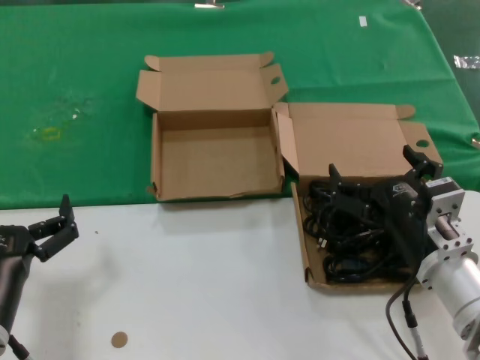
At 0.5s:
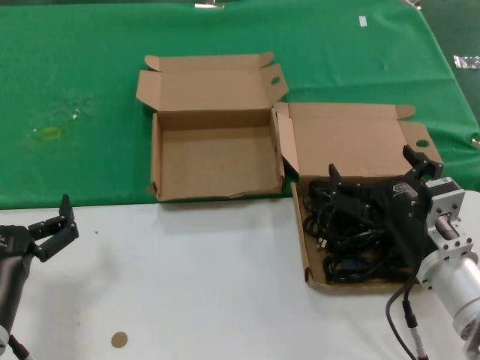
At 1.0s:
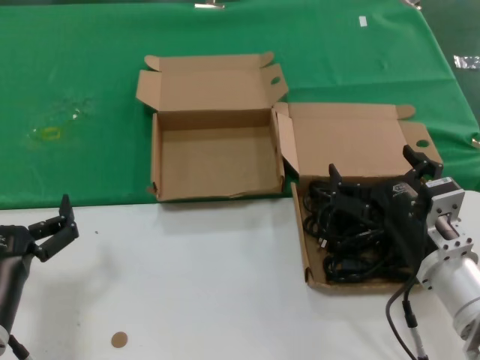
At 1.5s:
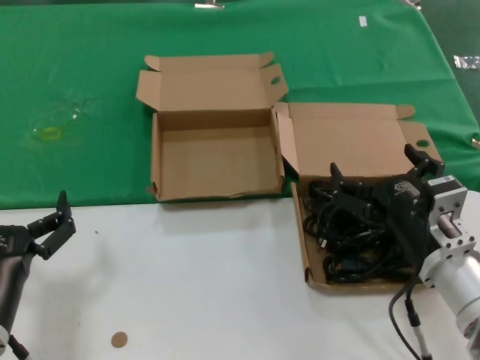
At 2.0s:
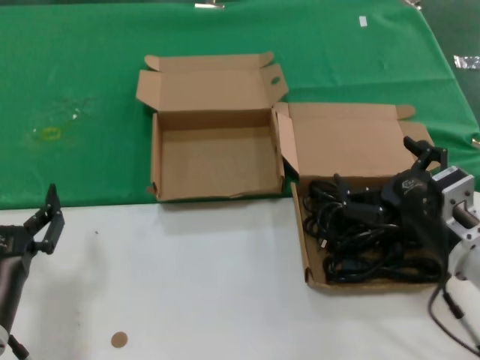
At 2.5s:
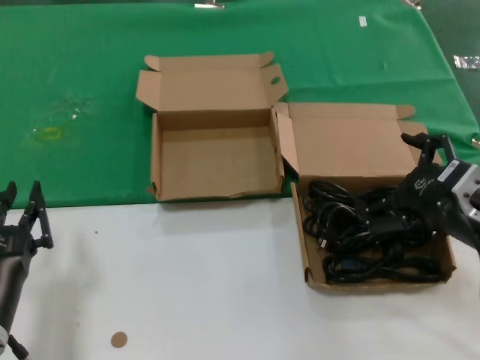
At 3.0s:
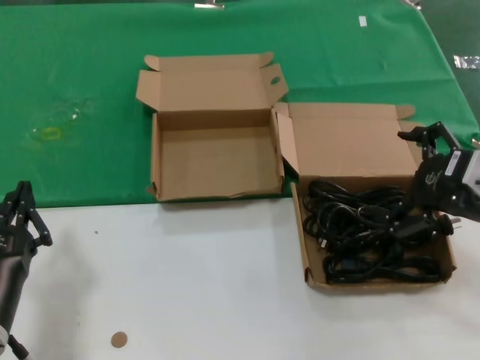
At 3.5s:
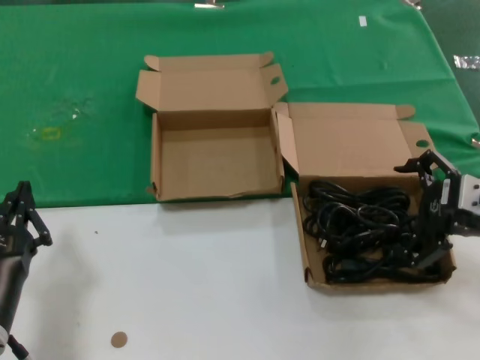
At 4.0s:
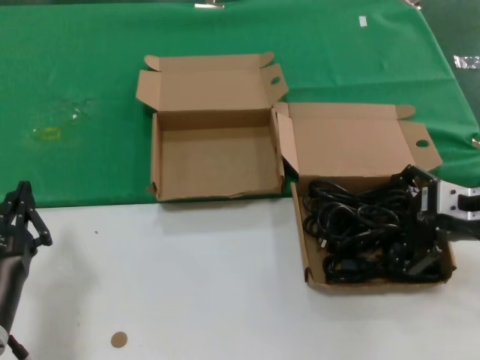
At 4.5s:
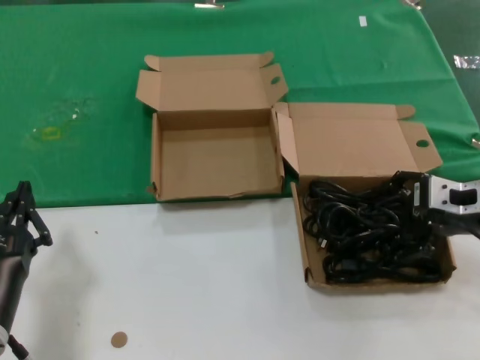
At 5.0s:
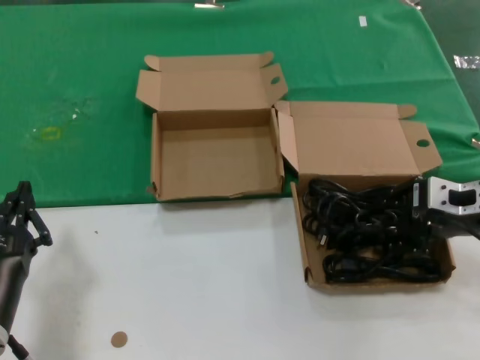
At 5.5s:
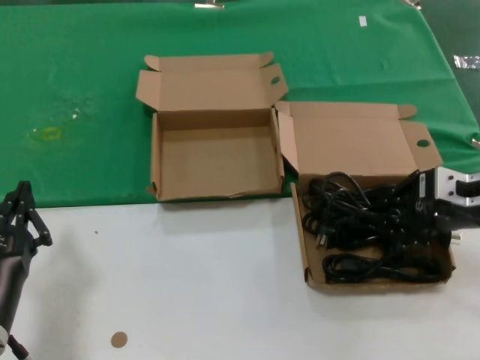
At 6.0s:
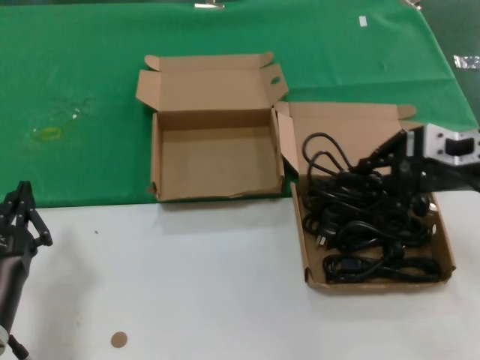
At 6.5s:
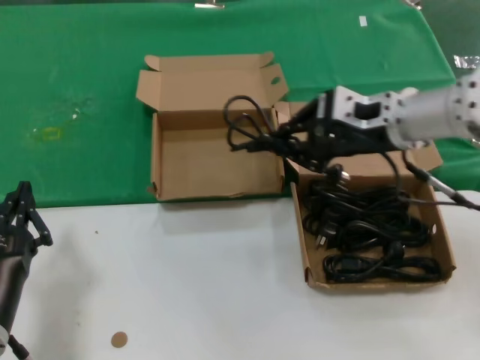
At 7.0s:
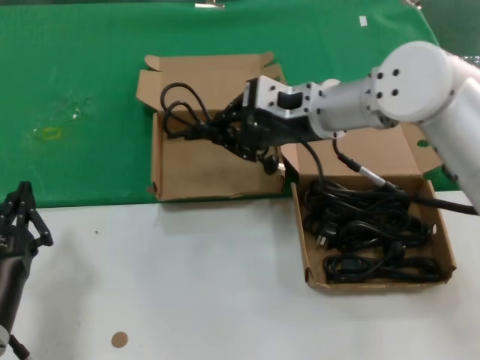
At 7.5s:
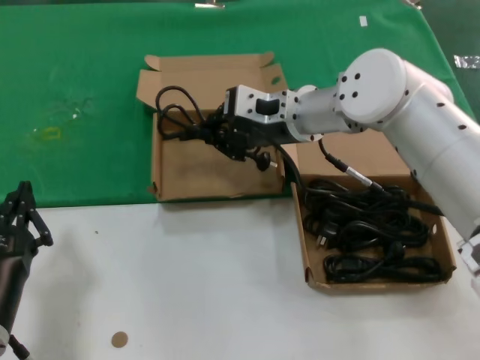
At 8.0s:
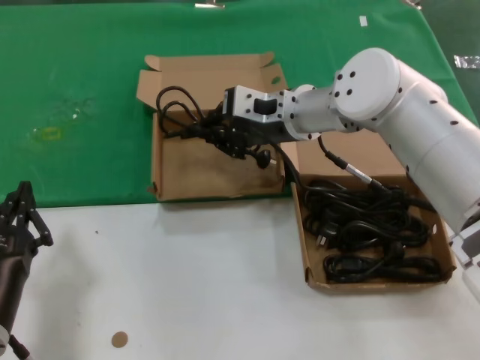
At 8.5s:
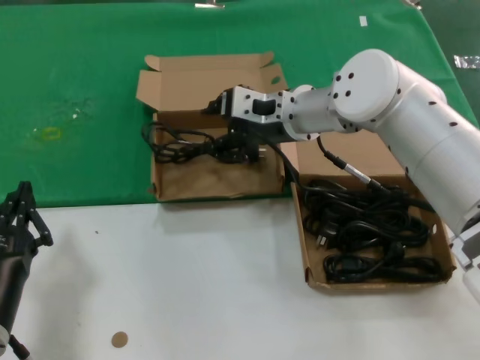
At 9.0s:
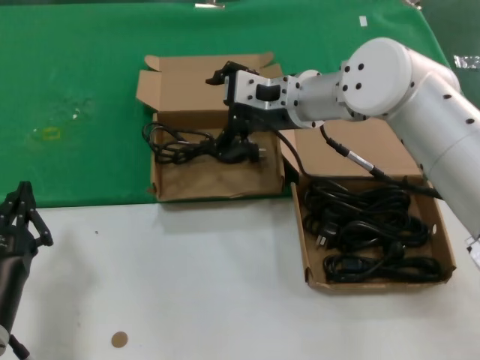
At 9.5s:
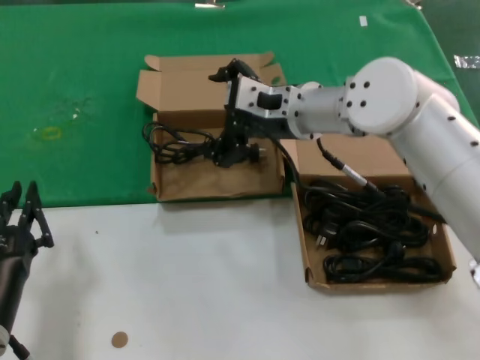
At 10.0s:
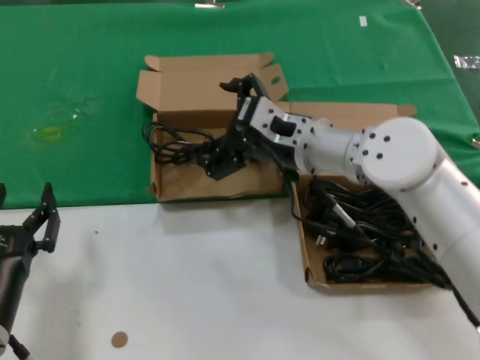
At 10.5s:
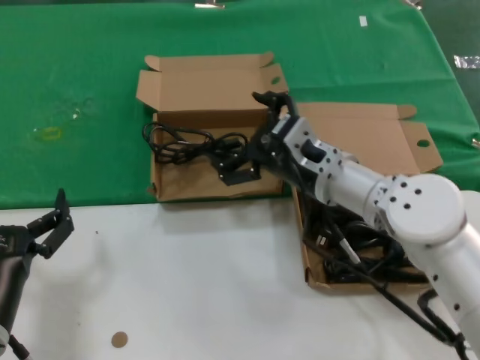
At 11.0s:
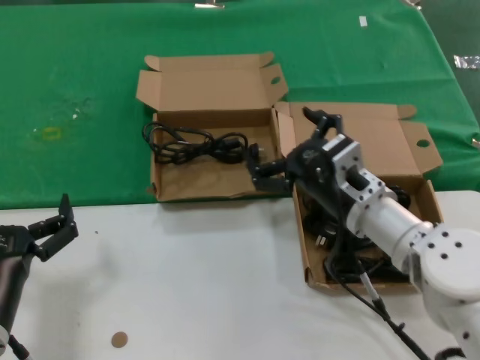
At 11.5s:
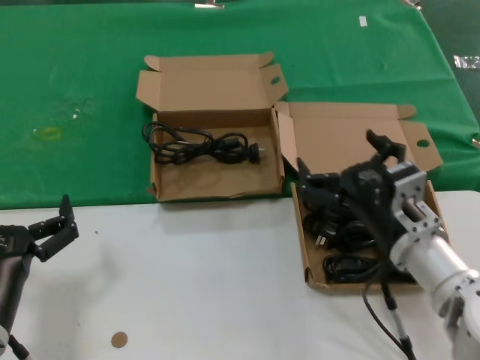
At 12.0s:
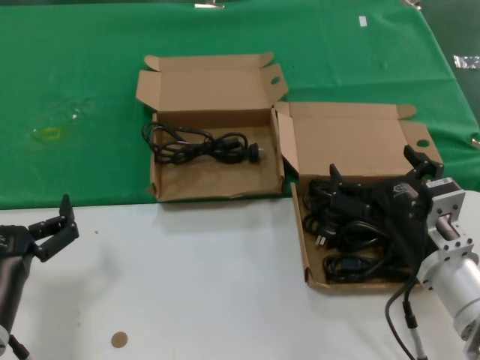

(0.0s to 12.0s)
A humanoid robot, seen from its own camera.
Task of the whole recording: take the parts from the box containing them and put them into an empty box.
Step, 0.0s - 5.0s: Grasp the data cable.
Step, 5.5s - 9.0s: Place the data cable in the another box.
0.0s - 2.0s: The hands stay close to where they were, moving slightly.
2.0s - 4.0s: The right hand travels to the right, upward and forward by roughly 15 cm.
4.0s - 6.0s: The right hand goes approximately 5 cm upward.
6.0s - 8.0s: The right hand travels to the left and forward by roughly 25 cm.
8.0s - 10.0s: The right hand moves backward, some 5 cm.
10.0s - 12.0s: The right hand shifts about 25 cm backward, downward and to the right.

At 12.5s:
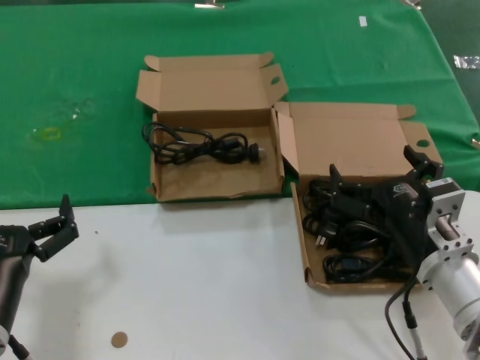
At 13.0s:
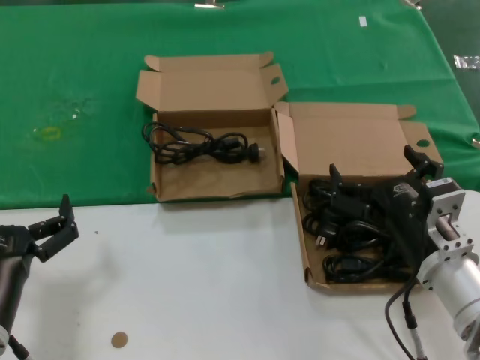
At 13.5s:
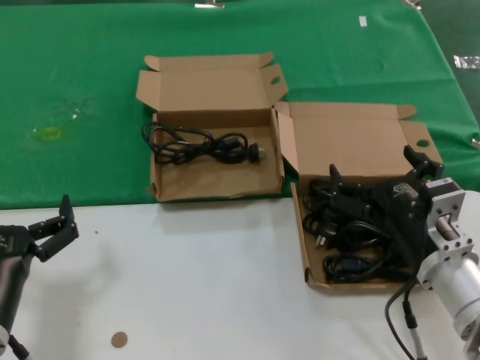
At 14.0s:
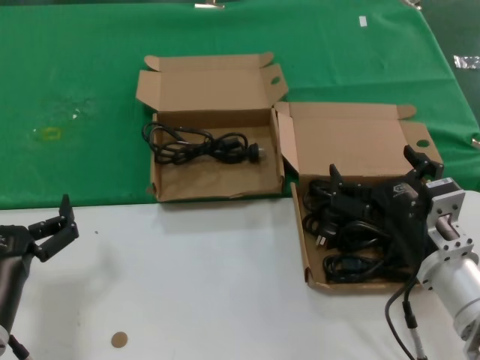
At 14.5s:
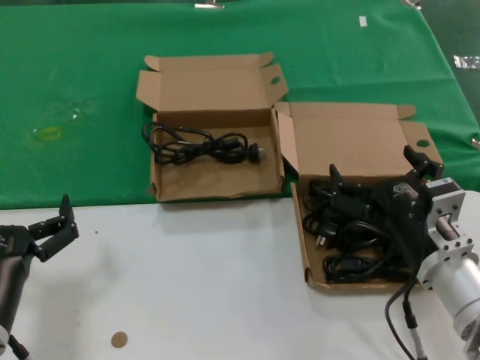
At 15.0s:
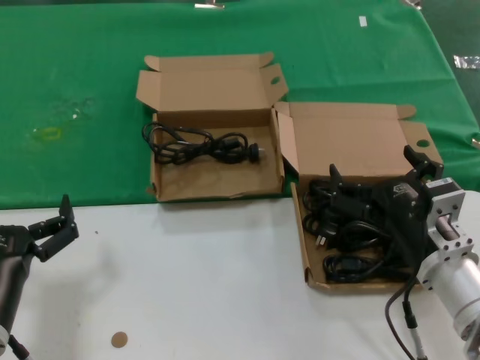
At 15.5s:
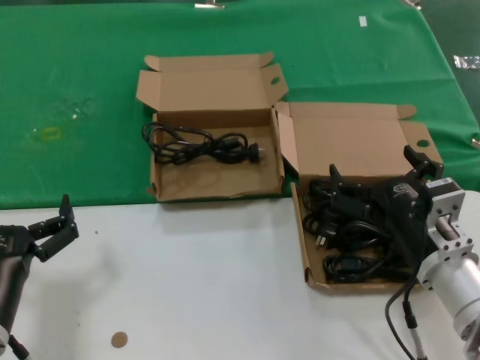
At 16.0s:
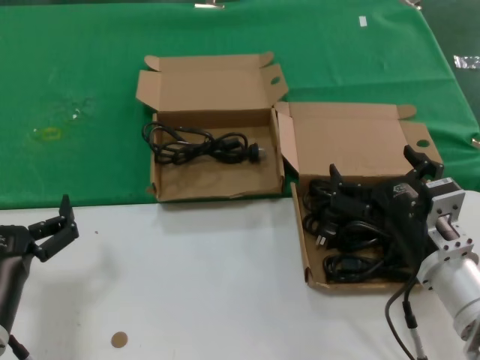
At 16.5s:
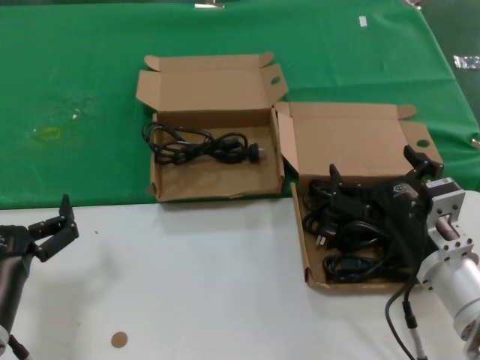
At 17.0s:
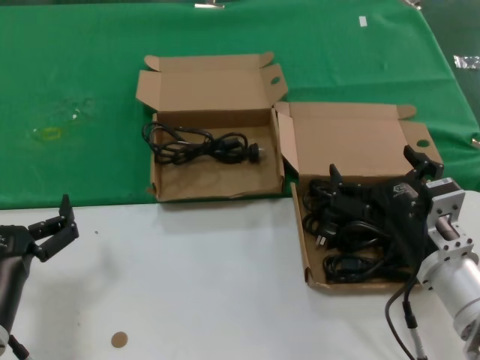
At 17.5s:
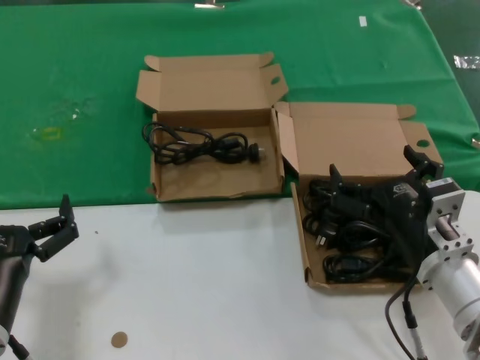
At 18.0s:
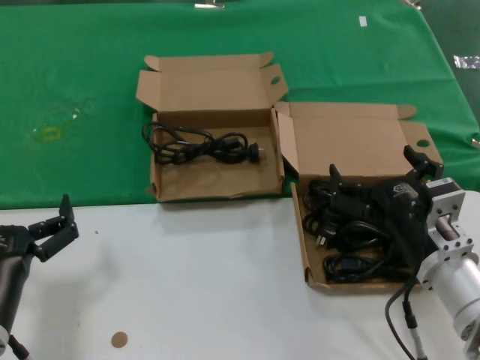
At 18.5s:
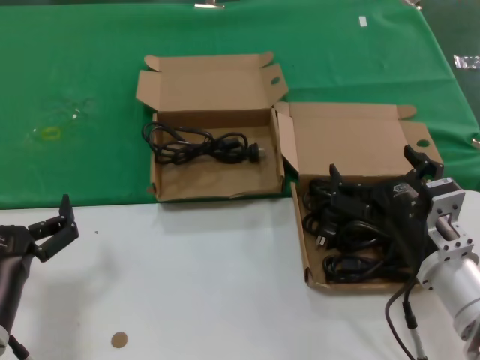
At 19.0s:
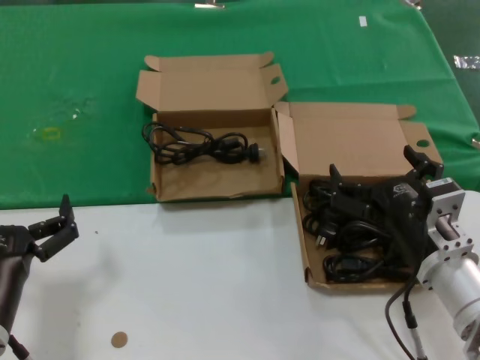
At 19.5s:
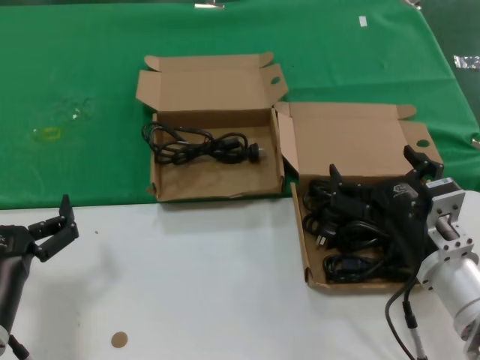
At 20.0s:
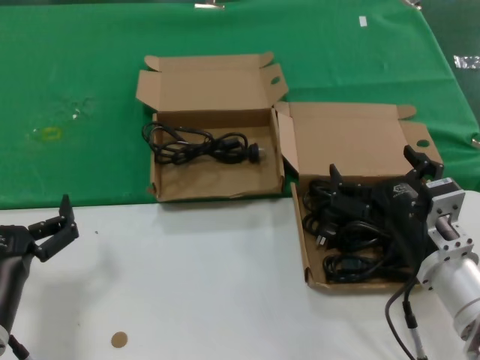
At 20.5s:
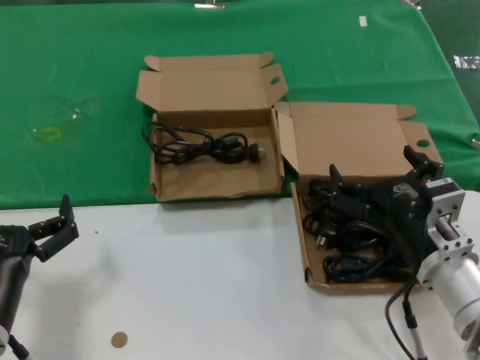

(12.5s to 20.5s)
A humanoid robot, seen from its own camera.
Task of the whole recording: take the parts from the box containing them and put them into an empty box.
12.5s - 20.5s: Both hands stay about where they are.

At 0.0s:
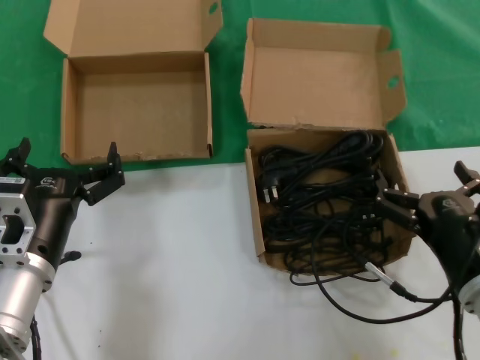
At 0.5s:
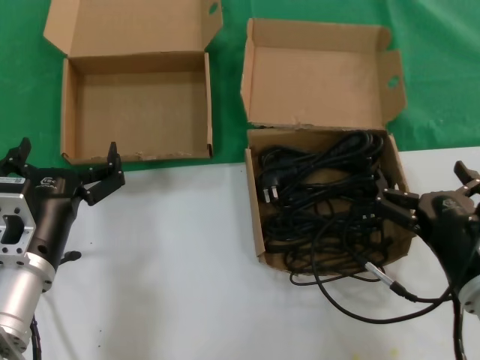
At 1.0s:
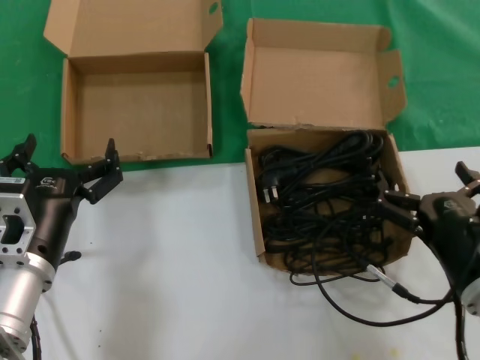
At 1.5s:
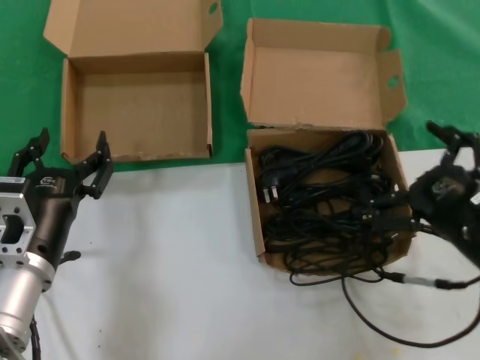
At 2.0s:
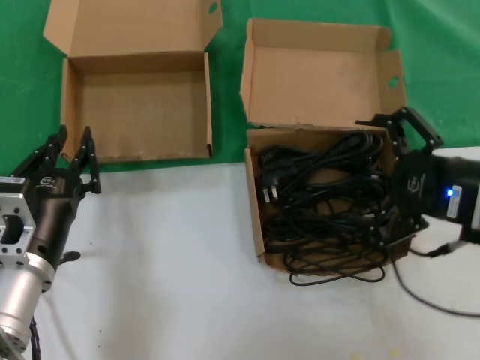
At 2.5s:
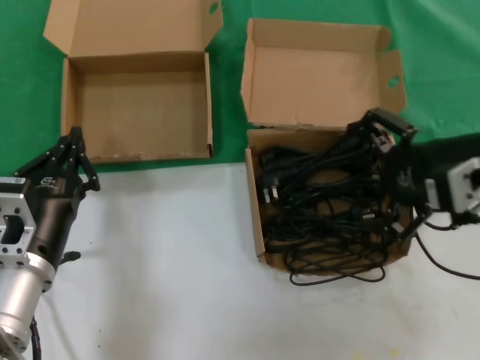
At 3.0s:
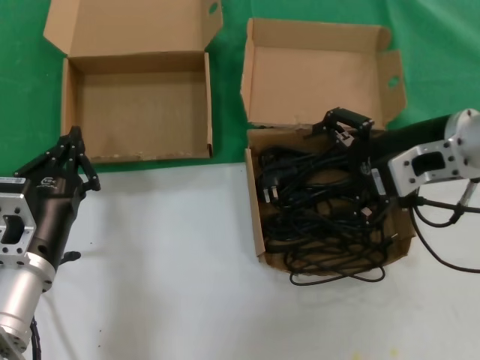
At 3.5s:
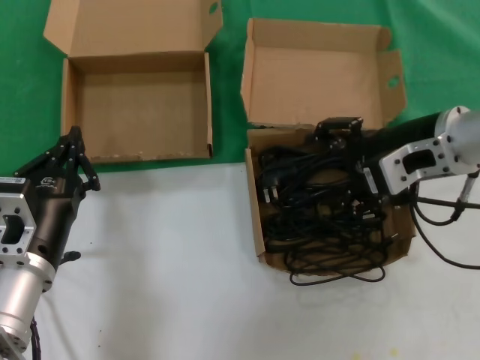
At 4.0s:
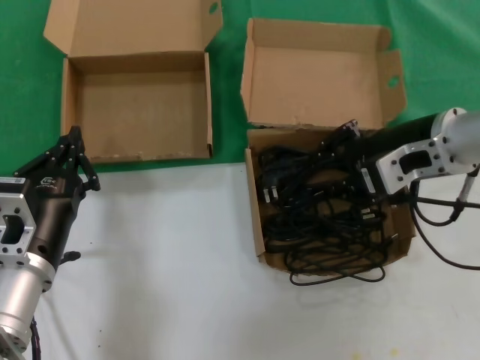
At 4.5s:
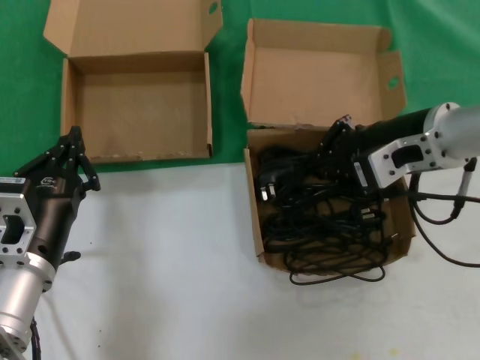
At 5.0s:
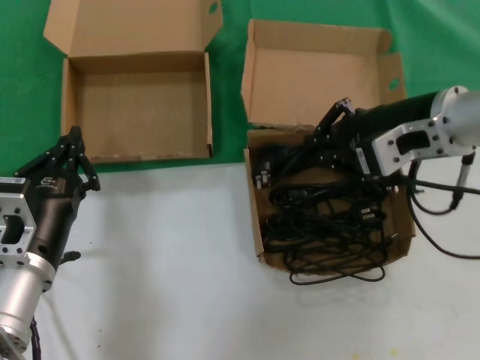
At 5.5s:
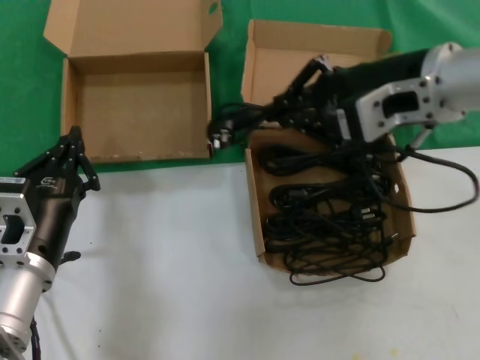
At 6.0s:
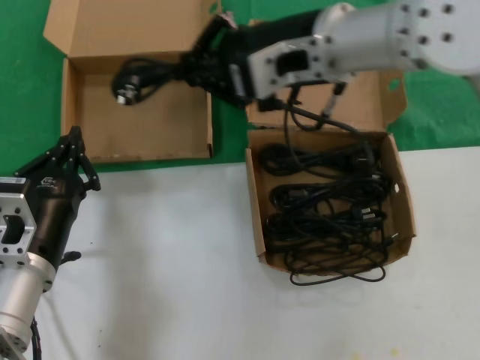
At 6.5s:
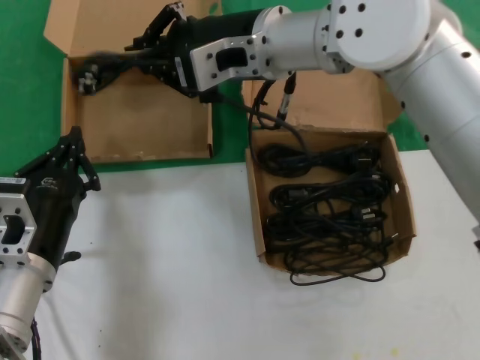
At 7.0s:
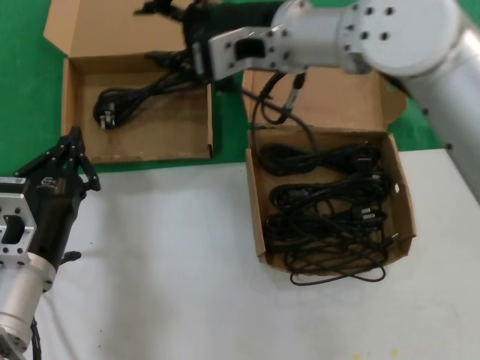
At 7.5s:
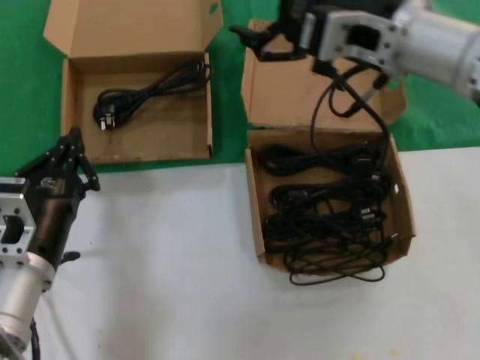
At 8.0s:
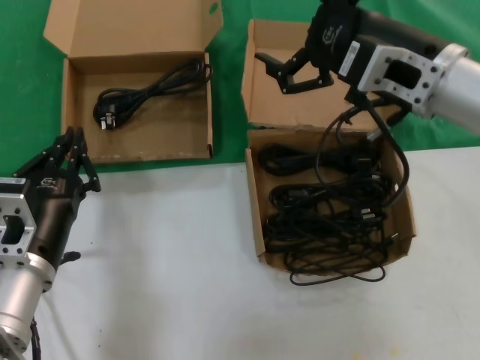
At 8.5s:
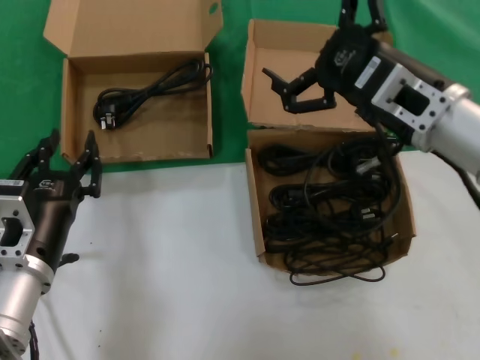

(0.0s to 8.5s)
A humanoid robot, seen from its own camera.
Task of the whole recording: take the parts from the box containing them and put them into an empty box.
Step, 0.0s - 4.0s: Grasp the data cable.
Step, 4.5s - 6.5s: Place the data cable in the another box.
0.0s - 2.0s: The right hand travels upward by roughly 15 cm.
2.0s - 4.0s: The right hand heads forward and to the left, covering some 15 cm.
4.0s - 6.5s: The right hand shifts some 20 cm to the left.
6.5s - 8.5s: The right hand travels to the right, backward and downward by roughly 20 cm.
